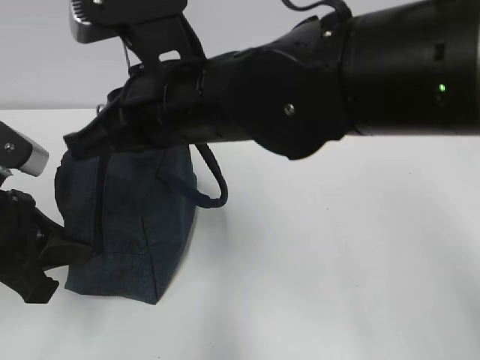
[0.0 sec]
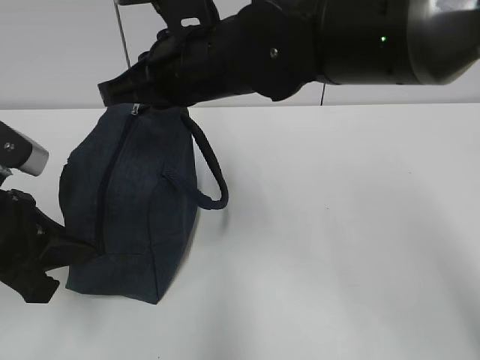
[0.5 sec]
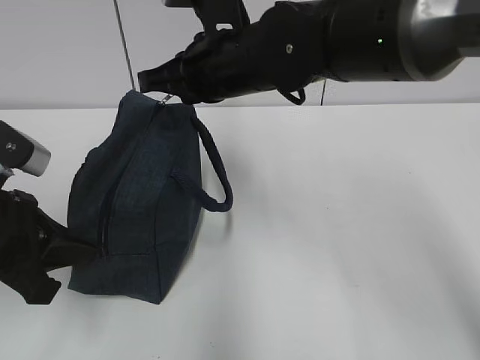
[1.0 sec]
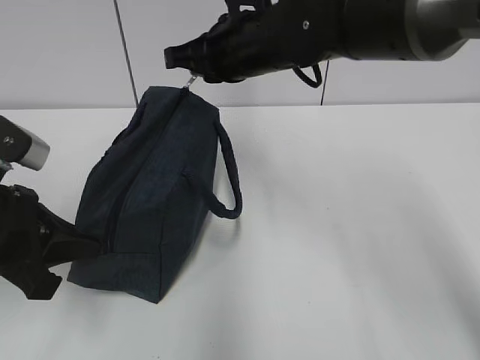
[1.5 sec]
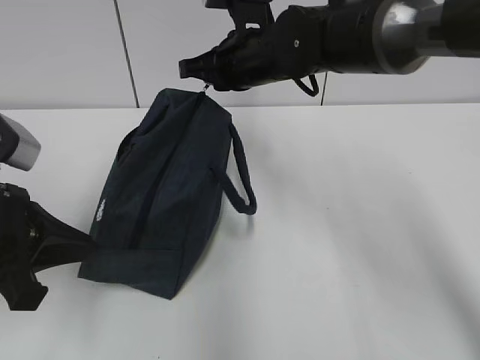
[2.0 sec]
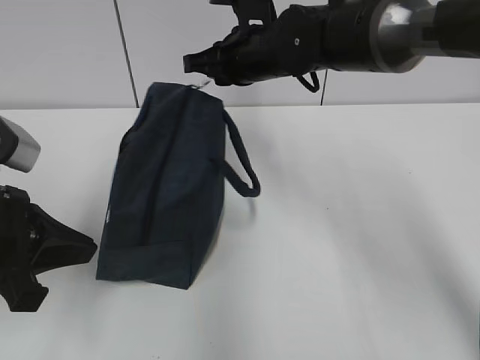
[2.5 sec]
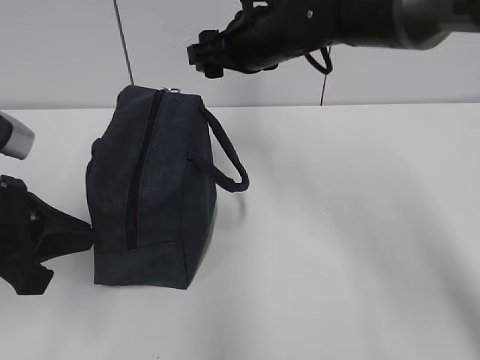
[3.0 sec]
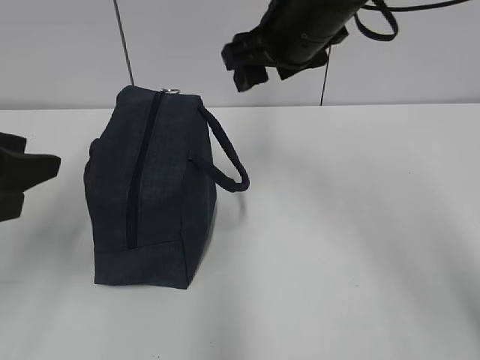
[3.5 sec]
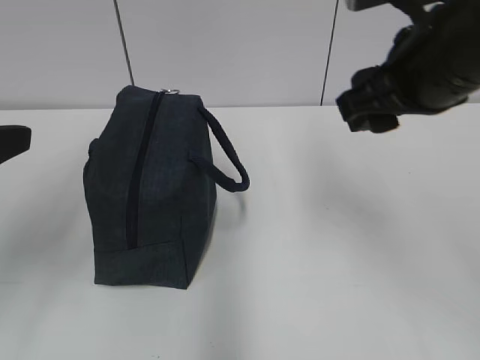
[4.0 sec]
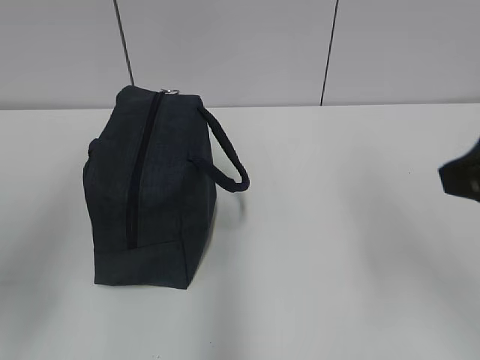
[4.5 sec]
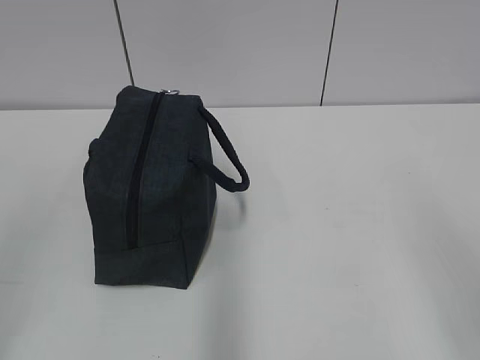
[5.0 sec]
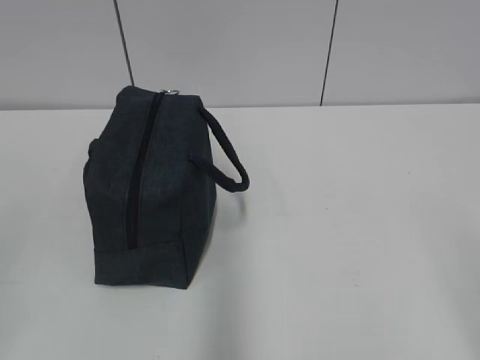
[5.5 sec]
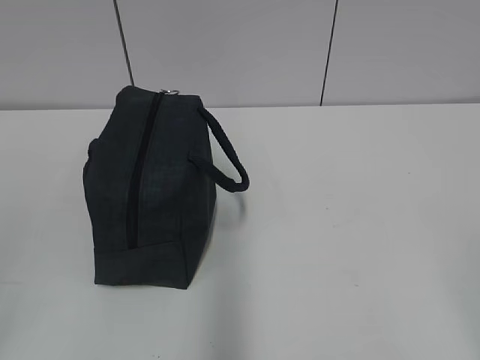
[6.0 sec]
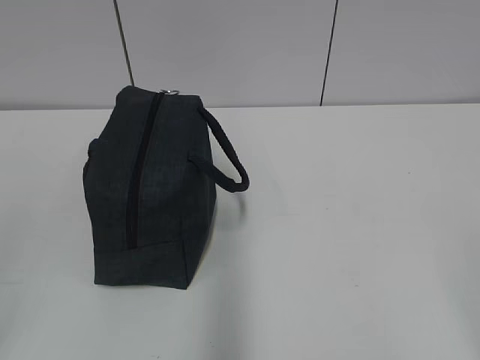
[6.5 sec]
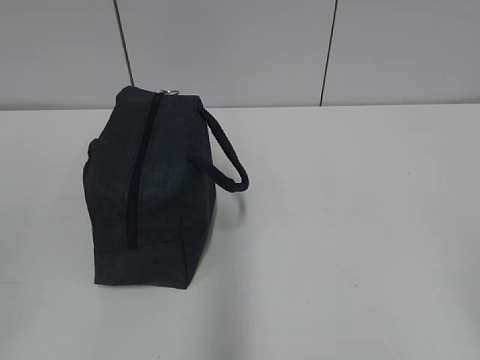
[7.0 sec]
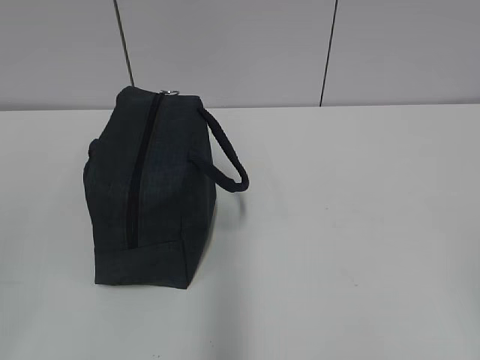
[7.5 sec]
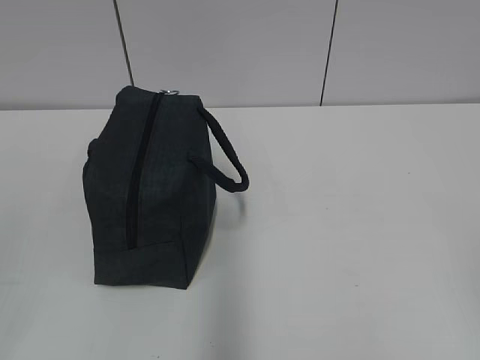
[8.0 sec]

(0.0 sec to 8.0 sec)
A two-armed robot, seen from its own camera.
0.0 sec - 2.0 sec: The right gripper is displaced forward and to the right by about 15 cm.
2.0 sec - 4.0 sec: The left gripper goes approximately 10 cm upward, and opens its fingers. The right gripper goes some 20 cm backward, to the right and upward, and opens up.
4.0 sec - 6.0 sec: The left gripper moves backward, some 20 cm. The right gripper heads backward and to the right, covering some 30 cm.

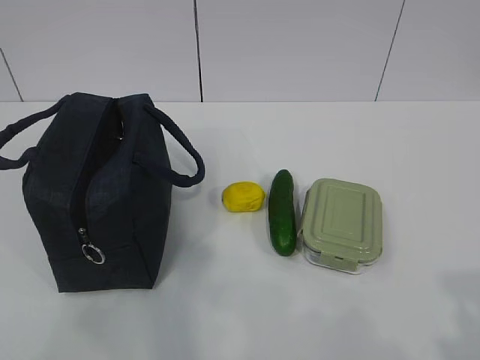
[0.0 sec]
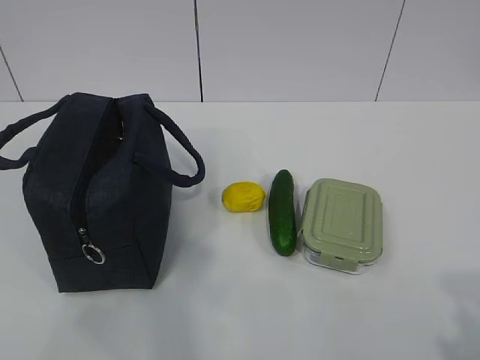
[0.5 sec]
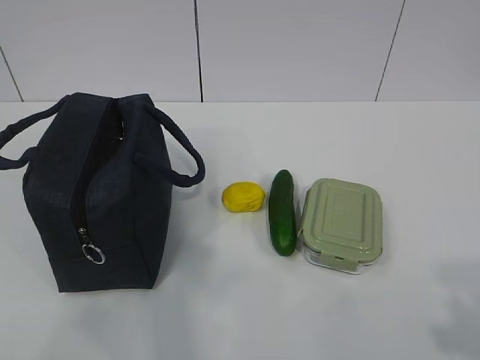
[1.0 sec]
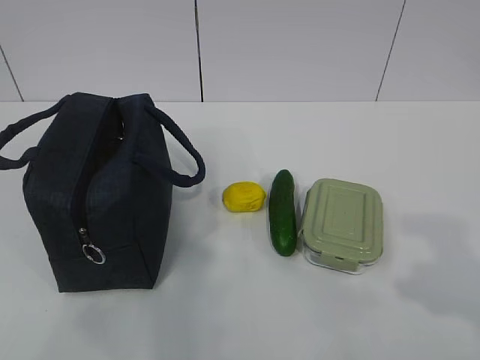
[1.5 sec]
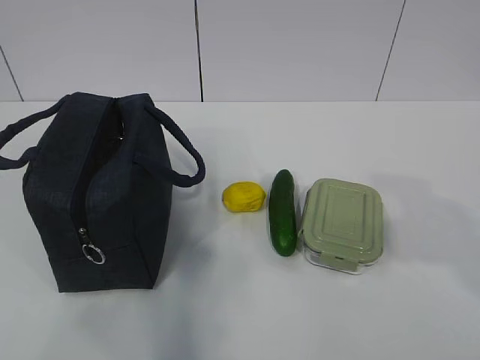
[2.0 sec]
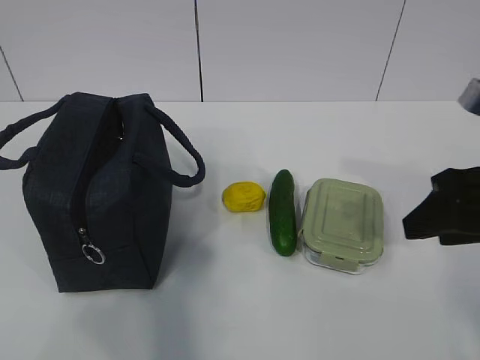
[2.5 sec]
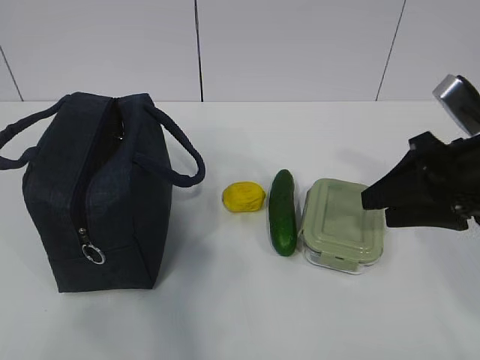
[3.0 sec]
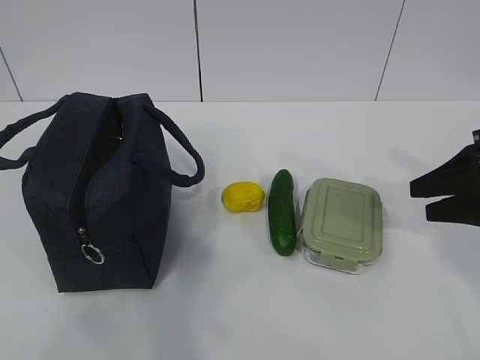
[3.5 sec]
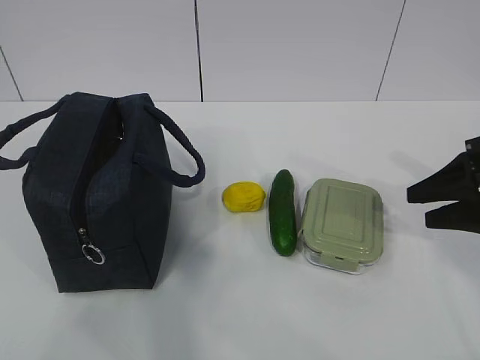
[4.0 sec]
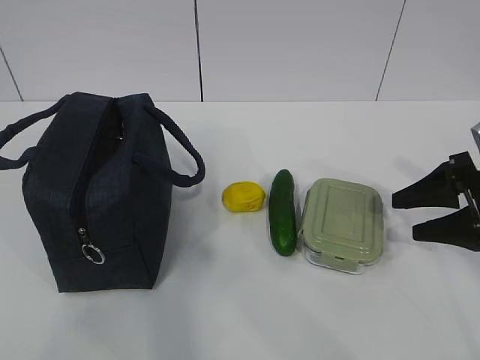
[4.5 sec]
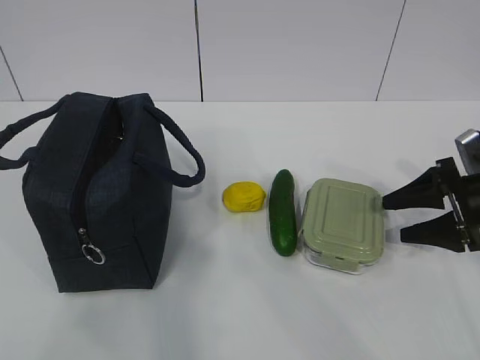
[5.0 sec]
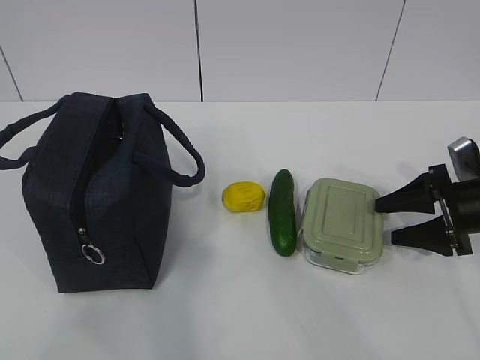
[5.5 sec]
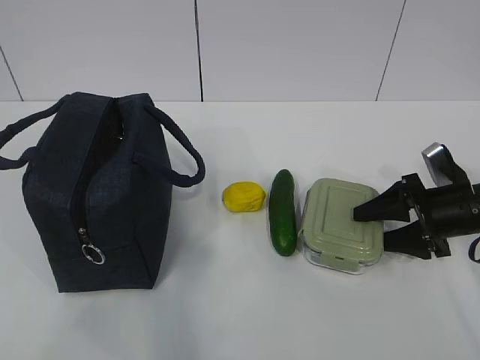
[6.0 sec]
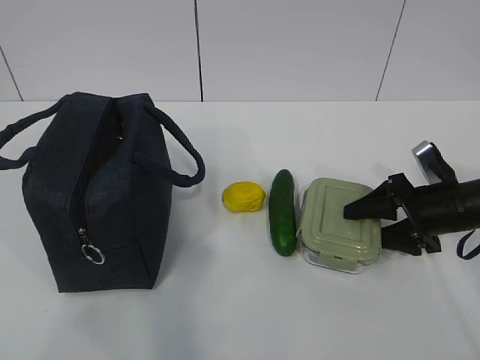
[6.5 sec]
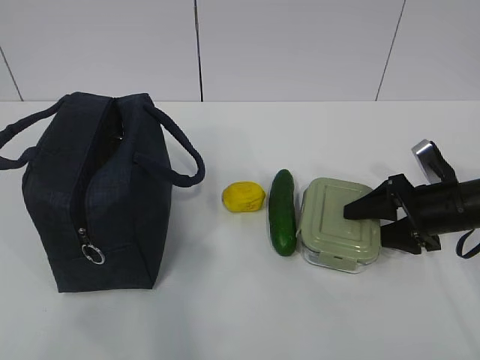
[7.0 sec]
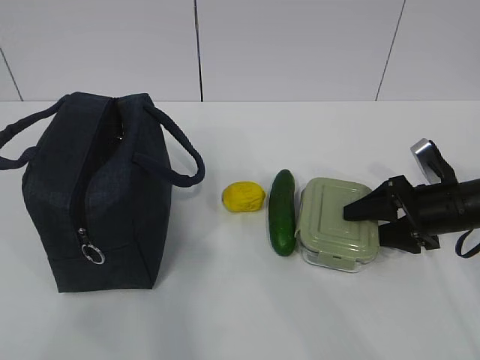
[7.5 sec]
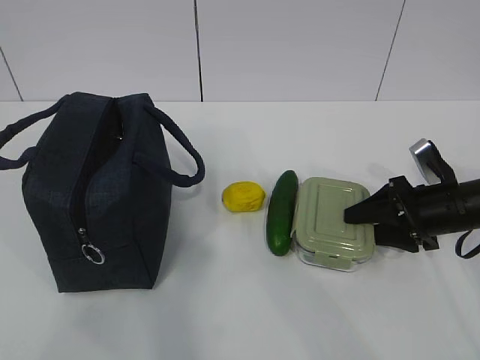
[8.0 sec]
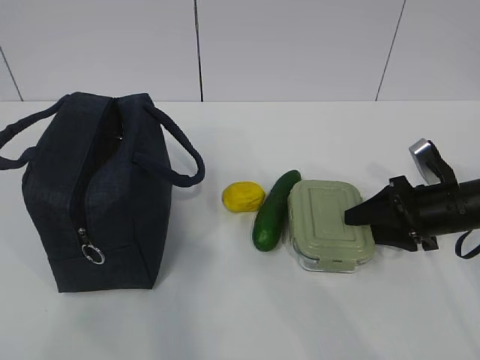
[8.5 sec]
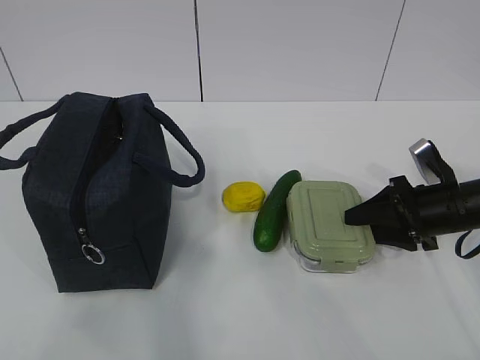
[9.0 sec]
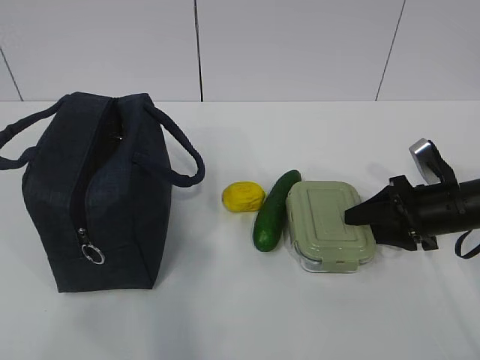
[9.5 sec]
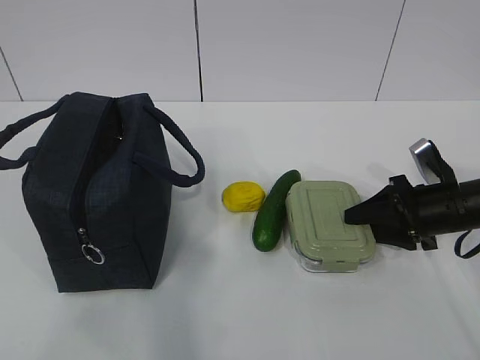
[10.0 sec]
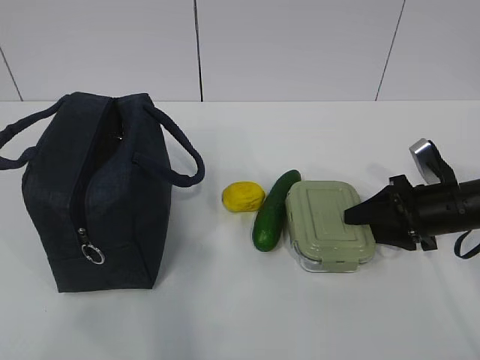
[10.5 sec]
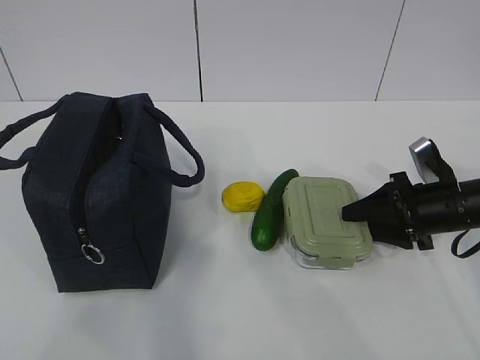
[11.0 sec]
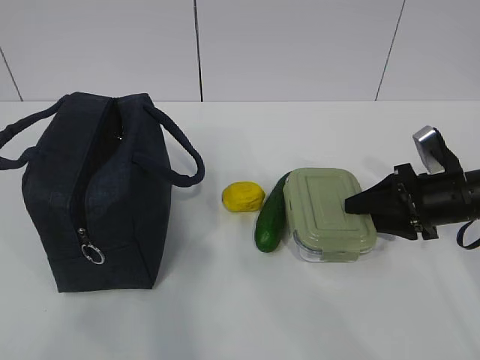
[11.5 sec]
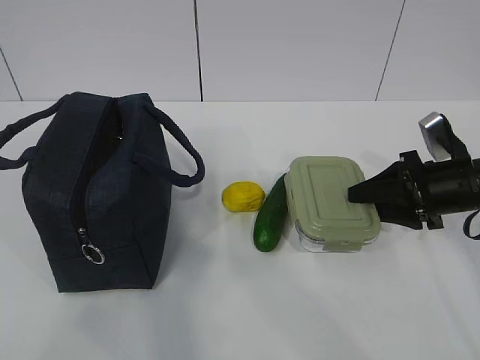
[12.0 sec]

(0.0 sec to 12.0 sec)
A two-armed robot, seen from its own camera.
Step, 0.0 sec - 7.0 sec: Grasp the box with the right gripper.
2.0 sec - 4.0 sec: The right gripper travels forward and downward by about 15 cm.
4.0 sec - 6.0 sec: The right gripper travels downward and forward by approximately 10 cm.
6.0 sec - 8.0 sec: The grippers stay close to where they were, moving slightly.
8.0 sec - 10.0 sec: The two grippers keep their place.
10.0 sec - 12.0 sec: The grippers move only a little.

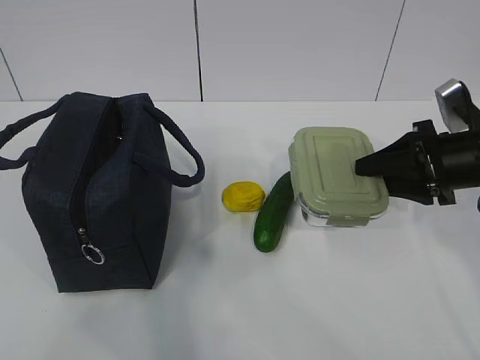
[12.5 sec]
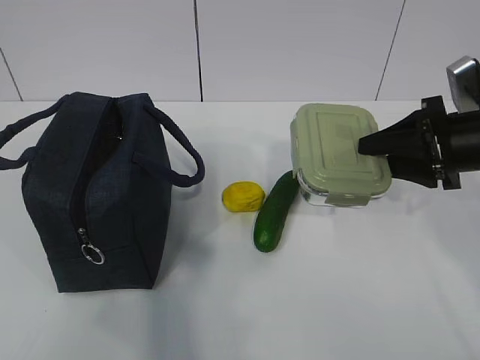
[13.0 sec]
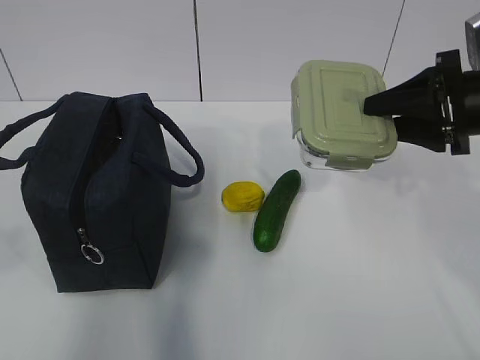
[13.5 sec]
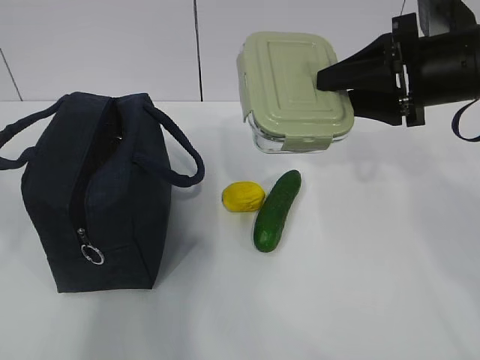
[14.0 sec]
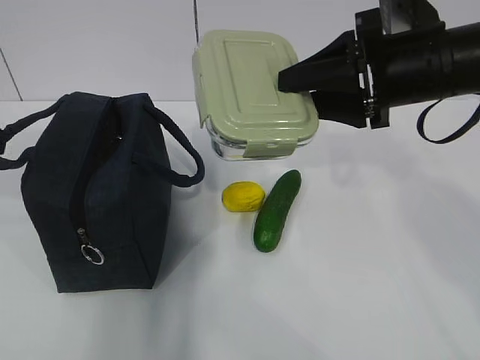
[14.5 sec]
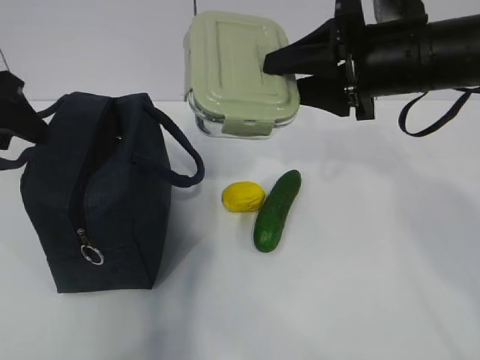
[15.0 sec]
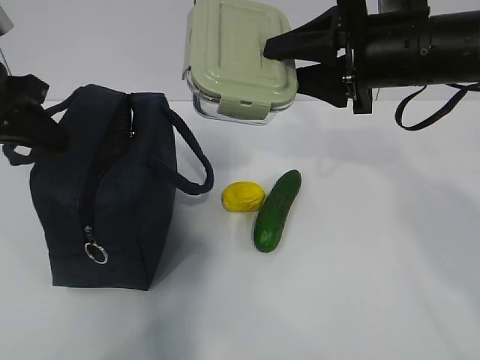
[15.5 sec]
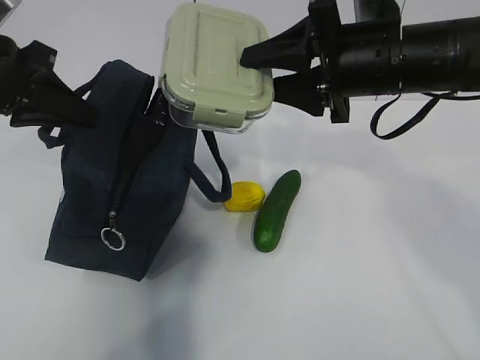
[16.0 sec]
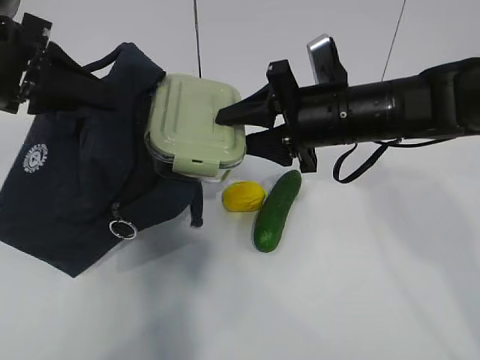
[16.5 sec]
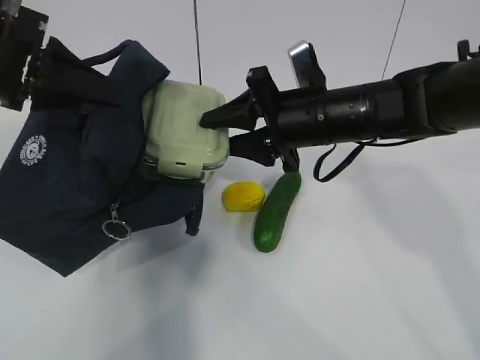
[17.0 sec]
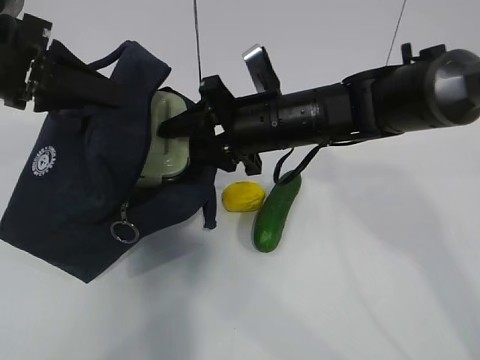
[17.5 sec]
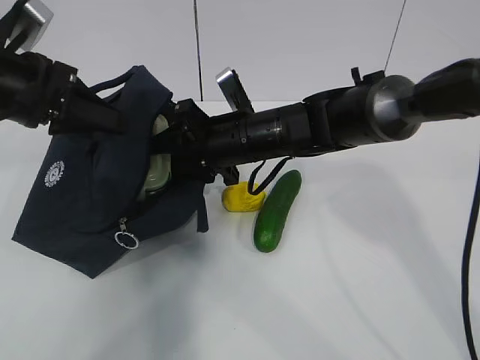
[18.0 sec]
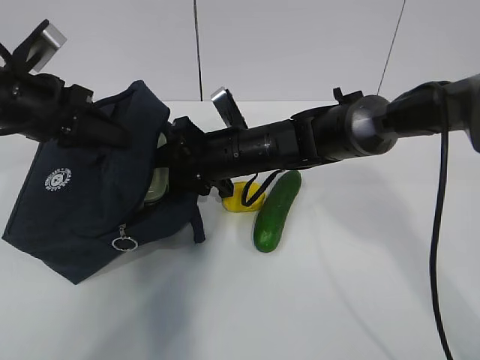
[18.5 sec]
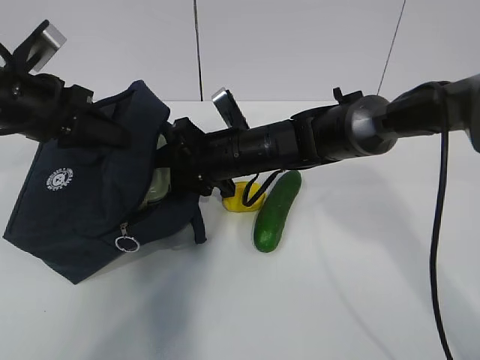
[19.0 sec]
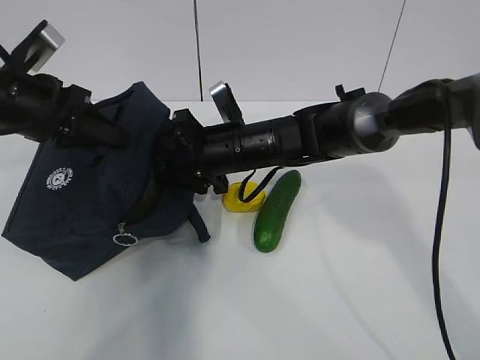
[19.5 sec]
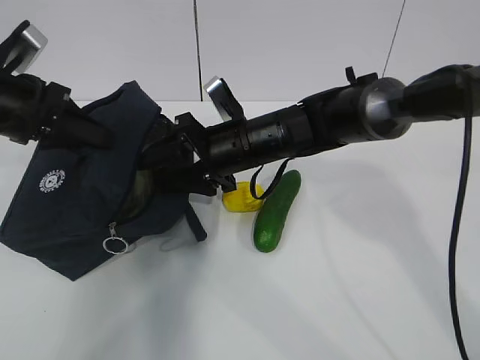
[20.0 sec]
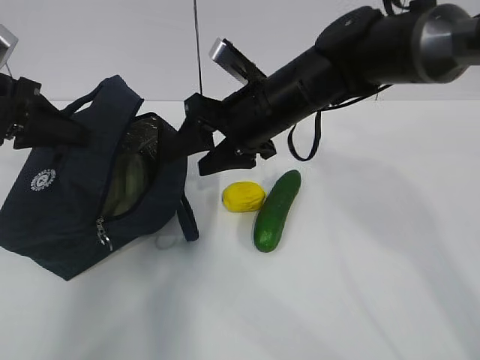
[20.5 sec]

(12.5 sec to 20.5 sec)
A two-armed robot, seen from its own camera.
Step, 12.5 sec - 20.0 sec: Place the box into the package with the right gripper.
12.5 sec - 14.5 sec: The right gripper shifts approximately 15 cm upward and to the left, while the left gripper moves forward, about 25 cm, and opens up.
14.5 sec - 16.5 sec: The left gripper goes about 10 cm forward and to the right, and closes its fingers. The right gripper is displaced downward and to the left by roughly 10 cm.
16.5 sec - 18.5 sec: The right gripper heads to the left, downward and forward, covering approximately 15 cm, while the left gripper travels downward by approximately 5 cm.
18.5 sec - 20.5 sec: The right gripper moves upward, some 10 cm.
